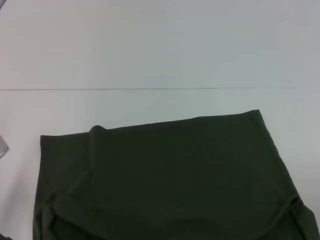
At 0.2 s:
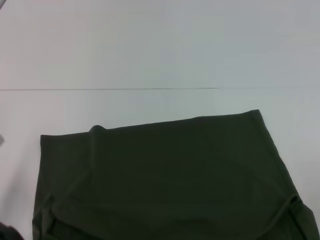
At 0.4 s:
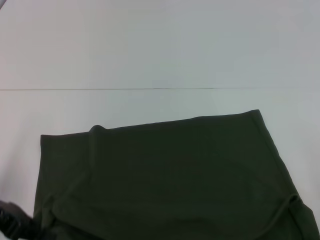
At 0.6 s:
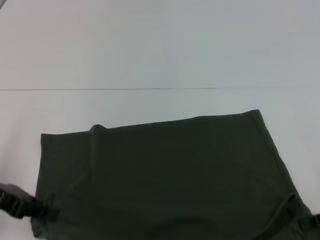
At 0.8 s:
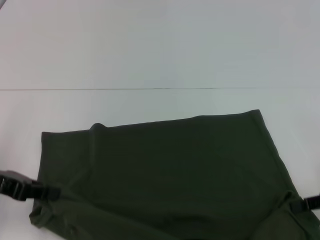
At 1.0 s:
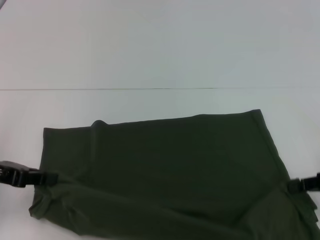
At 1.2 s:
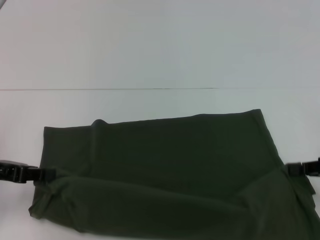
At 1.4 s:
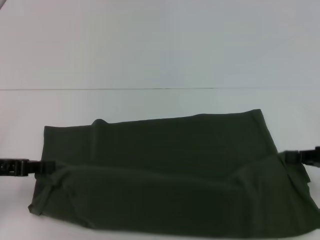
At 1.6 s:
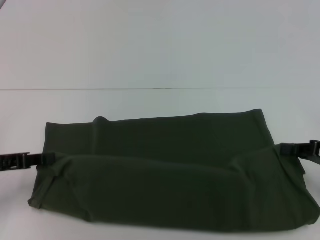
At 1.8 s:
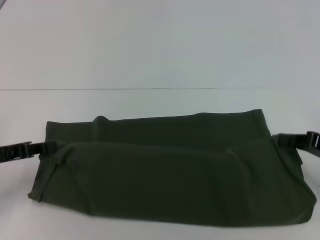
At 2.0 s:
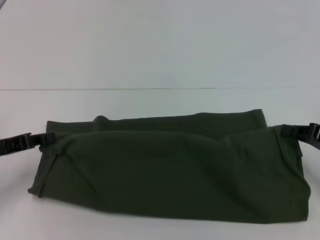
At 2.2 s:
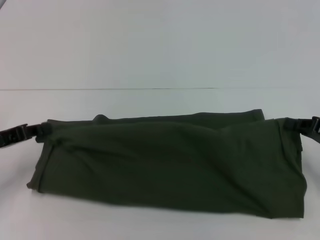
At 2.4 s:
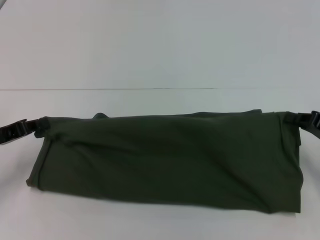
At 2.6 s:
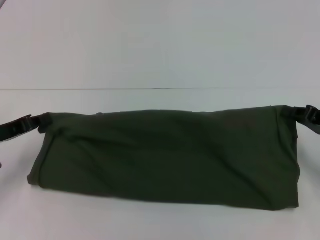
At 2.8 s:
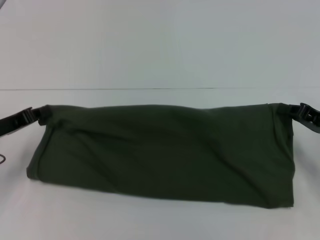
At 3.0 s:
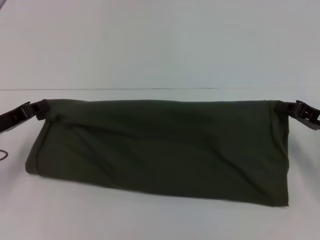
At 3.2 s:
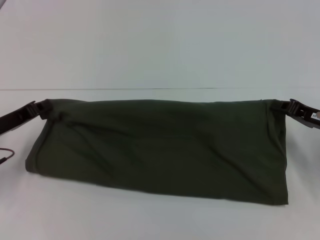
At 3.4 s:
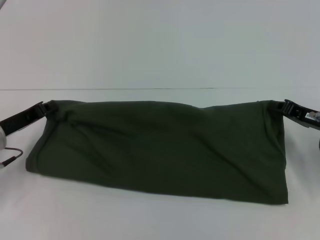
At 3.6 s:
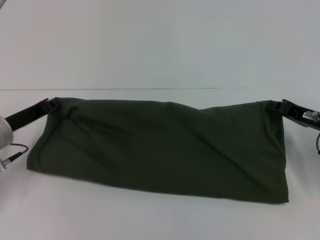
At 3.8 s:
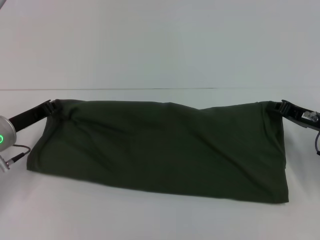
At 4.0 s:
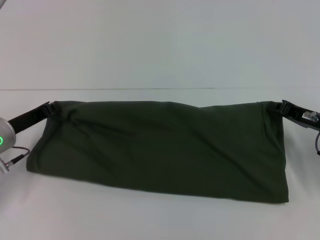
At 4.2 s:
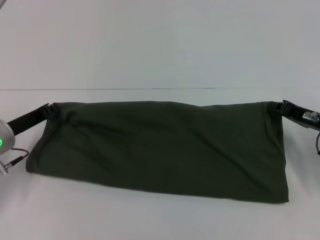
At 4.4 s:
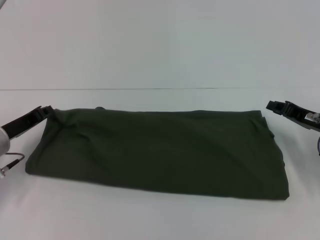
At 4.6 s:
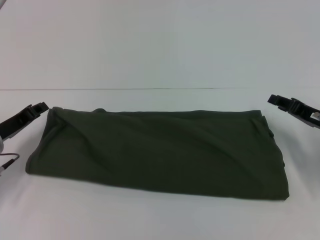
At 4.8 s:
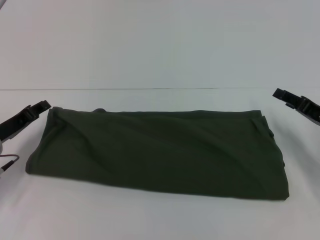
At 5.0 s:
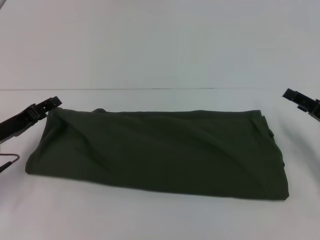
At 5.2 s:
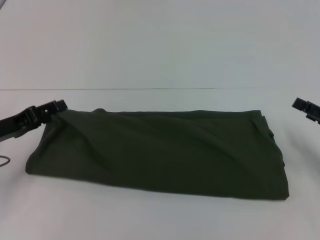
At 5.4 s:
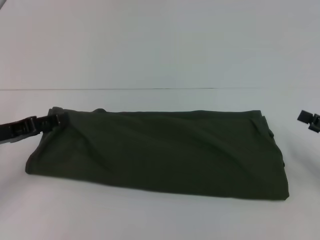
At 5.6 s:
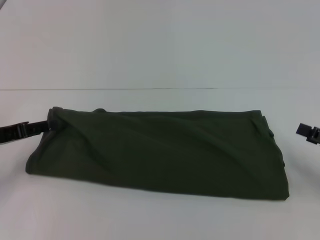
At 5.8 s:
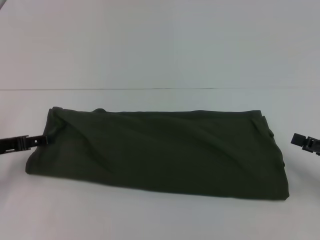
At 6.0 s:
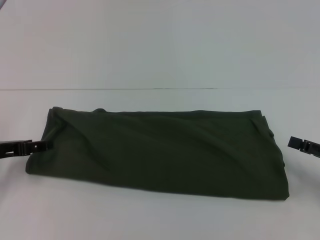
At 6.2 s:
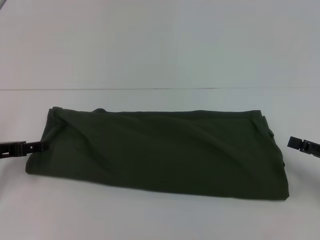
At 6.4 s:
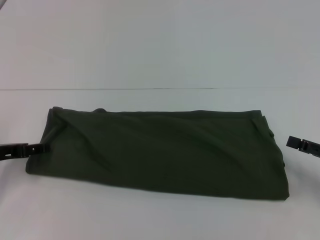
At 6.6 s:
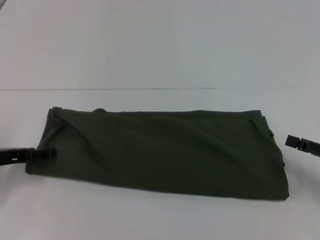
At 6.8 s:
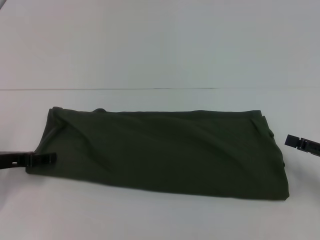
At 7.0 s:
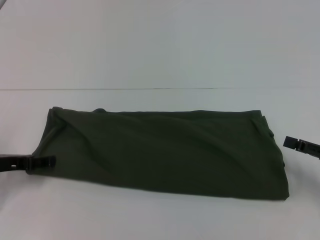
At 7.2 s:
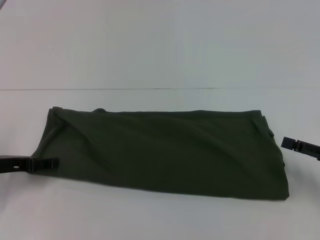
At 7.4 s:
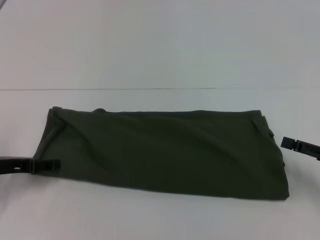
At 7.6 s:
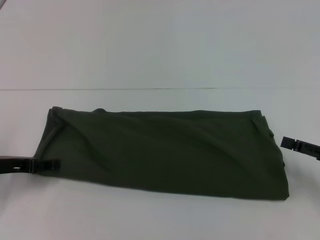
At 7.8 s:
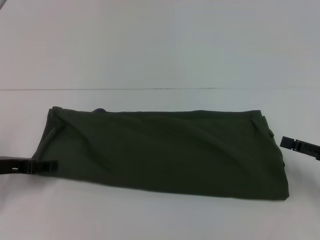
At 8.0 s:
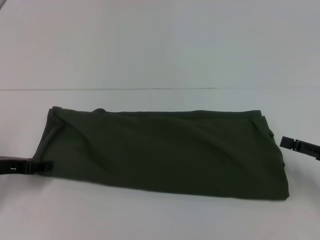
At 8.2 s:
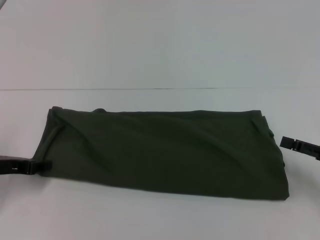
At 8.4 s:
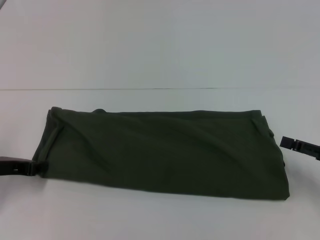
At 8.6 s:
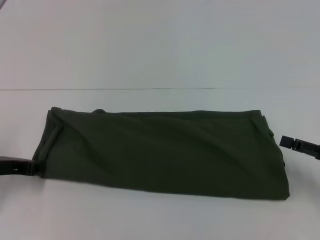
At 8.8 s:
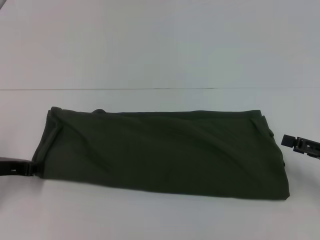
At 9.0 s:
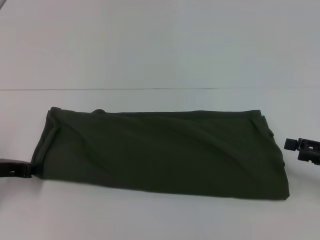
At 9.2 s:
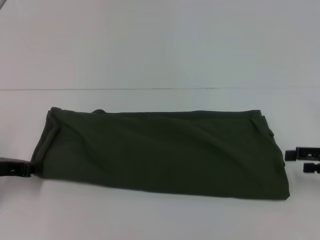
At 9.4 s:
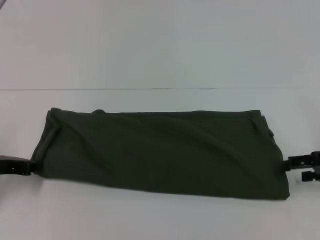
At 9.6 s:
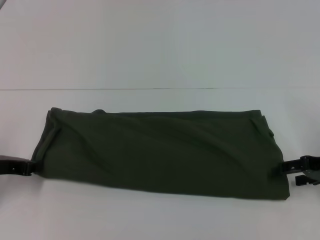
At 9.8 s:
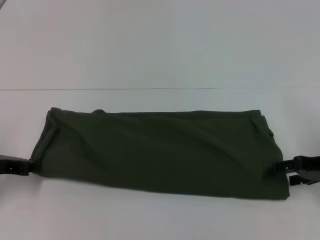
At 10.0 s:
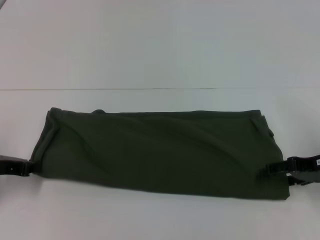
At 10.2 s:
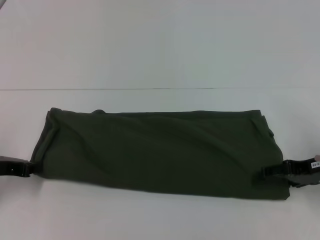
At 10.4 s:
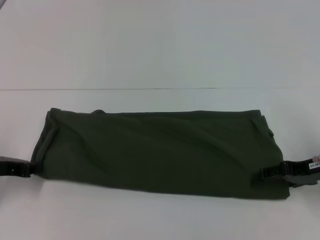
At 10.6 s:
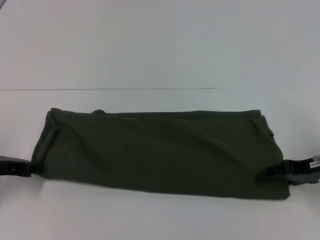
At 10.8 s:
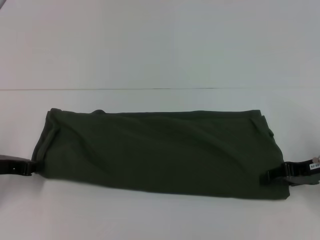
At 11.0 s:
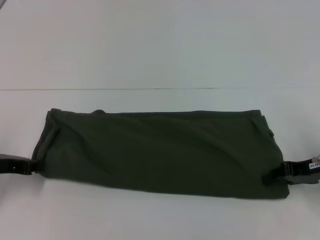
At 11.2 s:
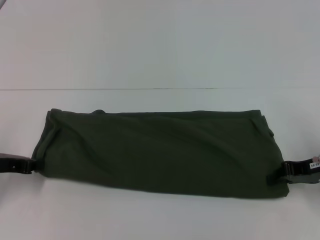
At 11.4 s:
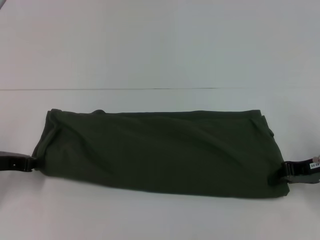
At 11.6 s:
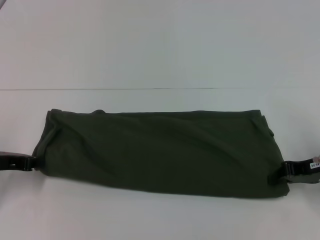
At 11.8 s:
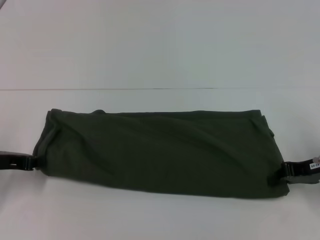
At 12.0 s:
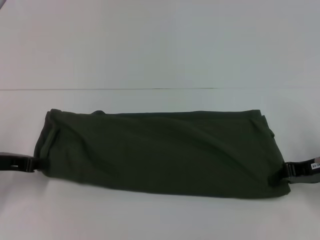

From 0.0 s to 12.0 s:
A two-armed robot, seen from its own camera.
Step, from 0.0 s to 5.4 s: Fold the clothes with your right hand.
From 0.0 s to 1.6 s: The right gripper shifts roughly 5 cm forward, while the left gripper moves to the left, some 5 cm.
From 1.6 s to 3.0 s: The right gripper shifts by roughly 5 cm.
From 3.0 s to 4.4 s: The grippers move only a little.
From 4.4 s to 6.0 s: The right gripper moves backward and to the right, roughly 10 cm, and opens up, while the left gripper shifts by about 5 cm, and opens up.
From 6.0 s to 7.6 s: The grippers stay close to where they were, moving slightly.
From 7.6 s to 9.0 s: The left gripper closes its fingers.
From 9.0 s to 10.4 s: The right gripper moves to the left, roughly 5 cm.
From 10.4 s to 12.0 s: The right gripper closes up.

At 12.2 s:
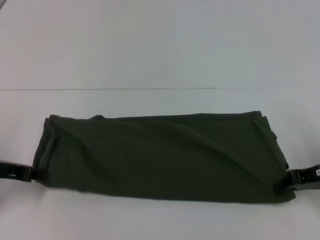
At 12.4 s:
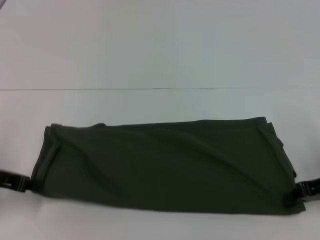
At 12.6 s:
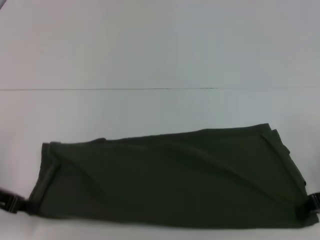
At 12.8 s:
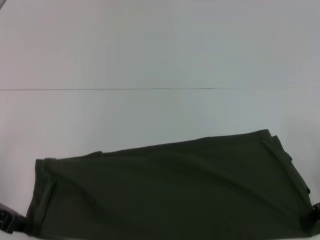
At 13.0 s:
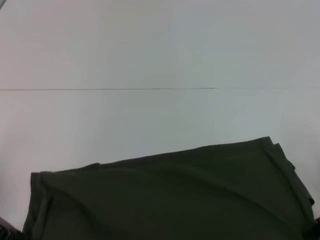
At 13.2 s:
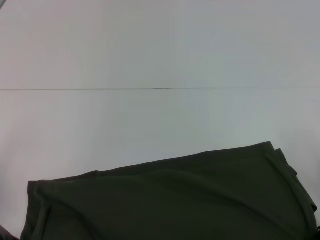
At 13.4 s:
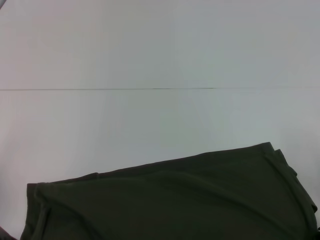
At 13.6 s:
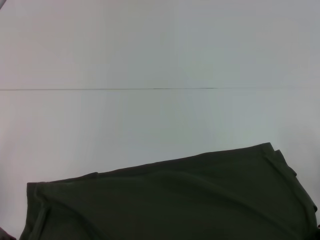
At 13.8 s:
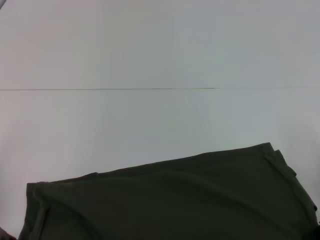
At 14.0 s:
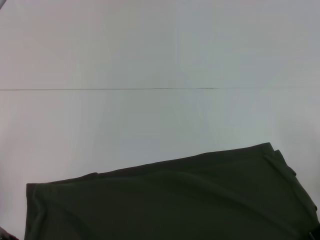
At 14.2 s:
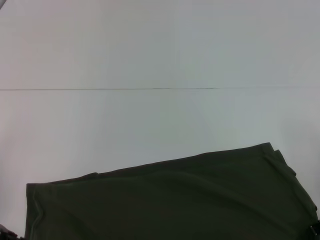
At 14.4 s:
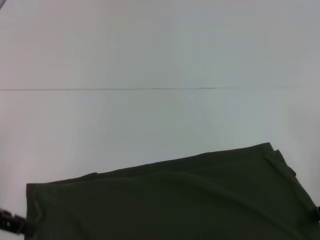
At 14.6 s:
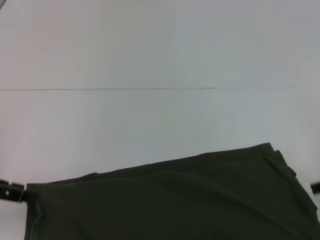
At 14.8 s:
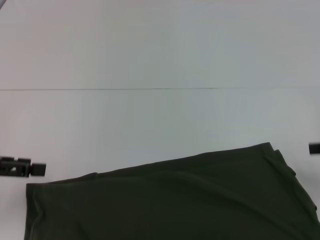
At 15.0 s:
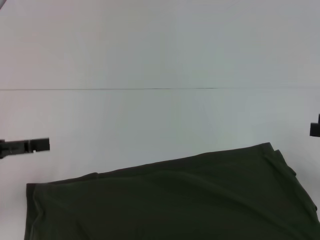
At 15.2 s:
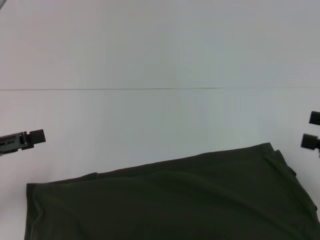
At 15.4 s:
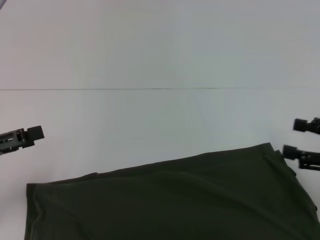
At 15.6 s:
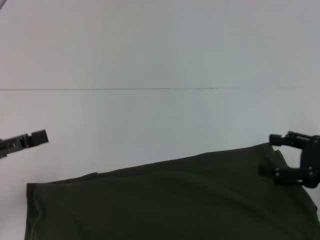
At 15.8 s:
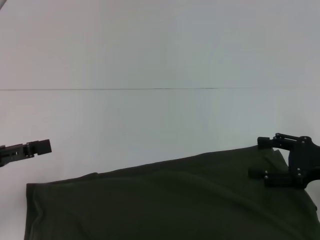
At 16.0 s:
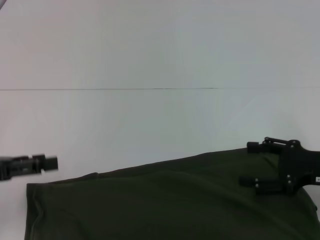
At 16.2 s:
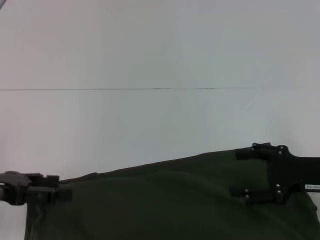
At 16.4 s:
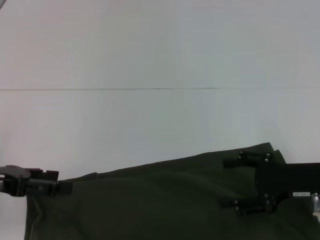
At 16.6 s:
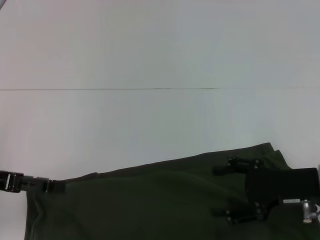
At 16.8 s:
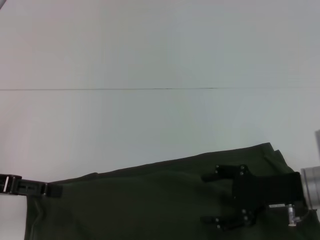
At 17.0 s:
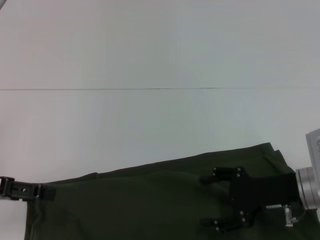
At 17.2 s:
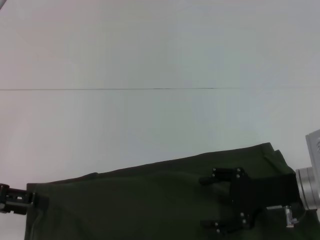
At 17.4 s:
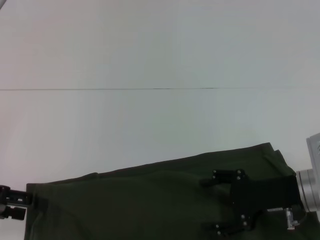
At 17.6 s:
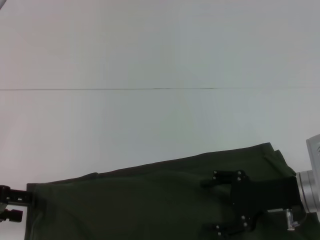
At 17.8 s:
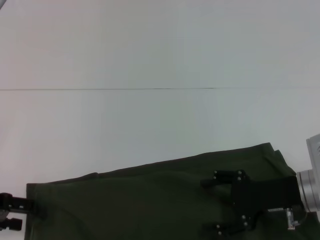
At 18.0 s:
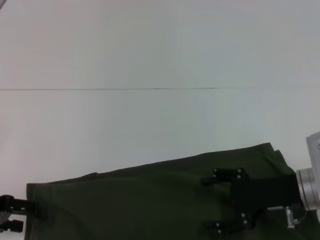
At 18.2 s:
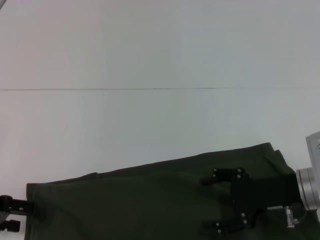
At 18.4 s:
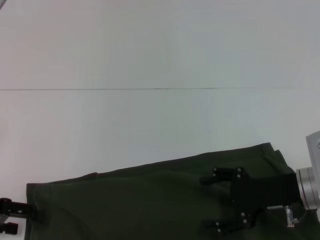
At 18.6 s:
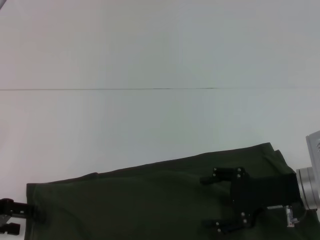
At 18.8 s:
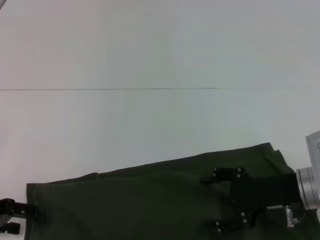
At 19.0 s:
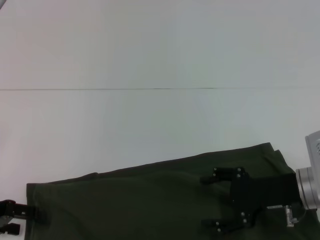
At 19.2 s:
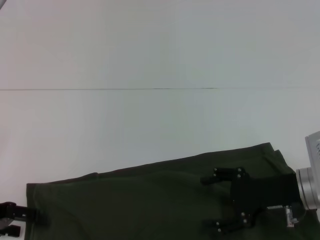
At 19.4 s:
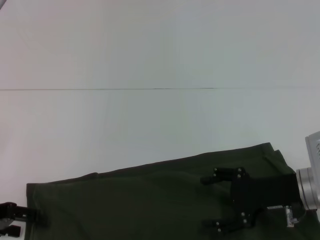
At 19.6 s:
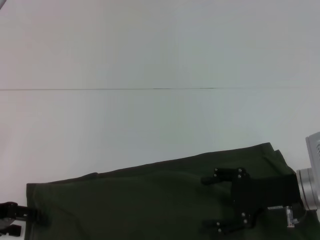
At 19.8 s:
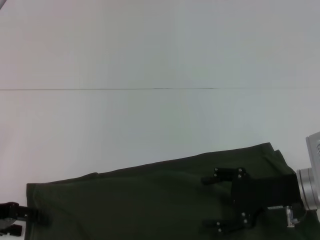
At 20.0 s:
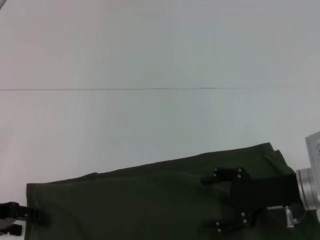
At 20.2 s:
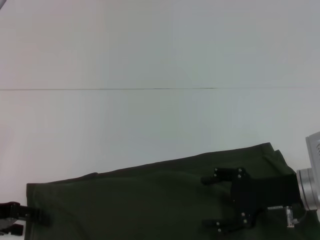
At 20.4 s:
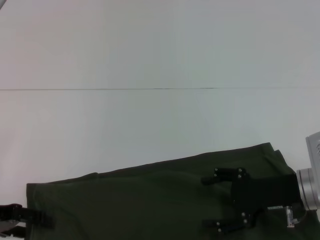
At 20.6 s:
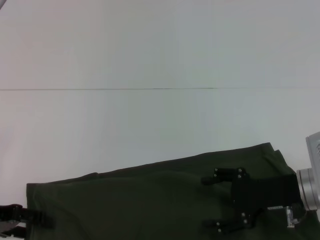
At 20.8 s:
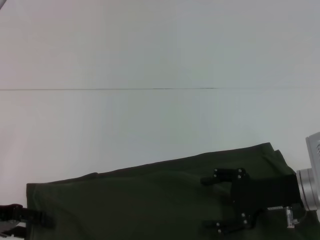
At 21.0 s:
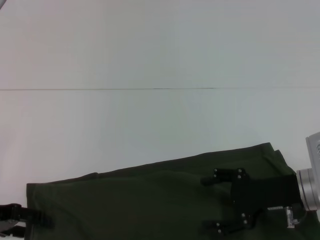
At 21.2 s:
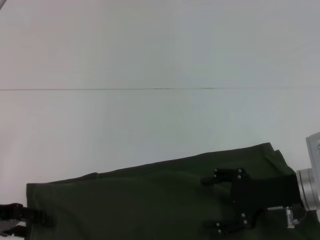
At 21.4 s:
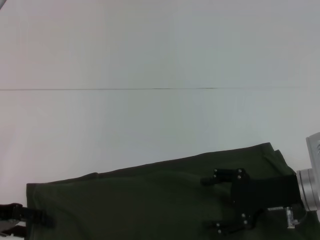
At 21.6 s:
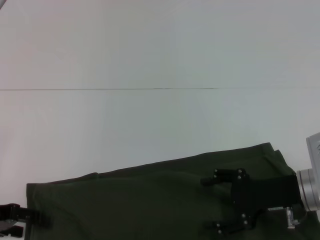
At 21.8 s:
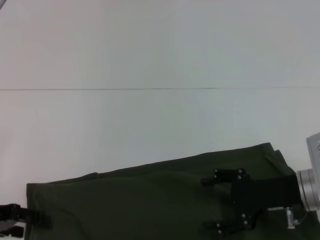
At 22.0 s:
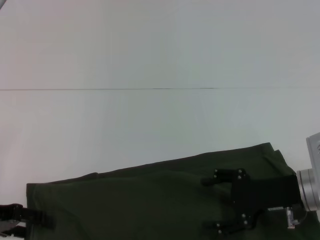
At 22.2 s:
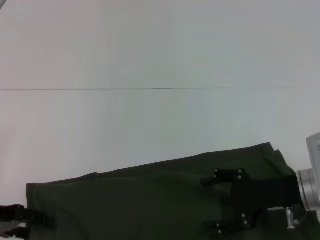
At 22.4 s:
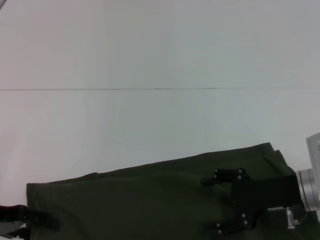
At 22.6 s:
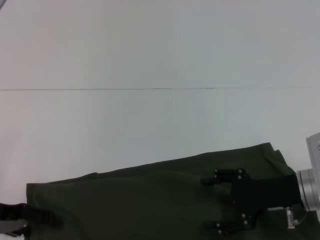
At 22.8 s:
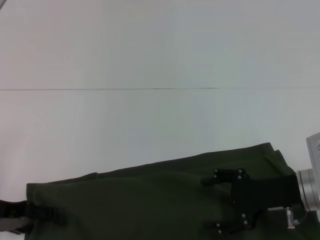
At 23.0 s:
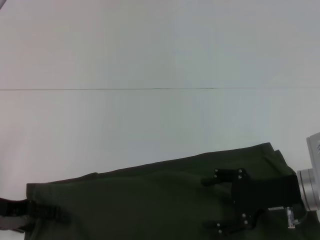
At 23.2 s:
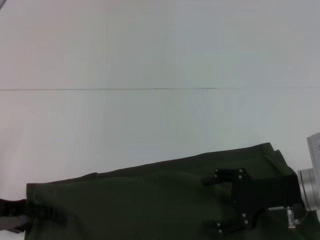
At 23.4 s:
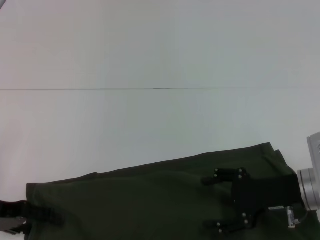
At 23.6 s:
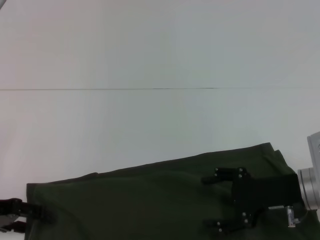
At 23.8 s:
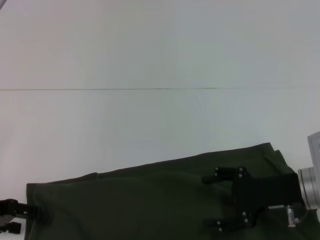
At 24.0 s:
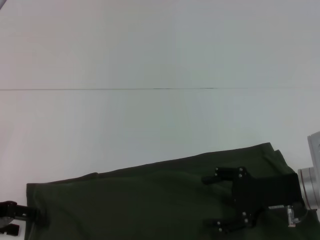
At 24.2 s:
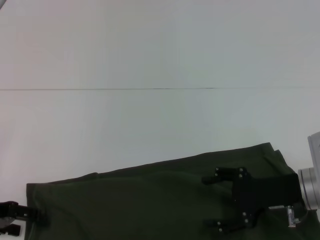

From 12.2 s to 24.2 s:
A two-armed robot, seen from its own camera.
From 12.2 s to 13.8 s: The left gripper goes about 5 cm backward.
From 13.8 s to 15.2 s: The left gripper opens up. The right gripper changes place by about 5 cm, and opens.
From 15.2 s to 16.6 s: The right gripper is displaced to the left and downward by approximately 10 cm.
From 19.8 s to 22.6 s: The two grippers keep their place.
From 22.6 s to 24.2 s: The grippers stay close to where they were, moving slightly.
